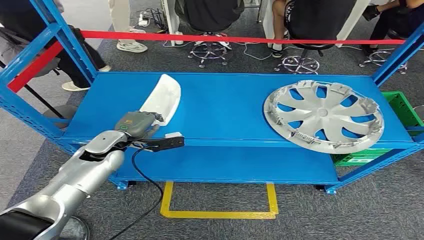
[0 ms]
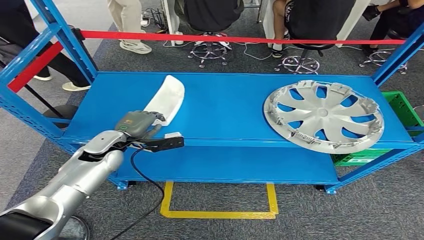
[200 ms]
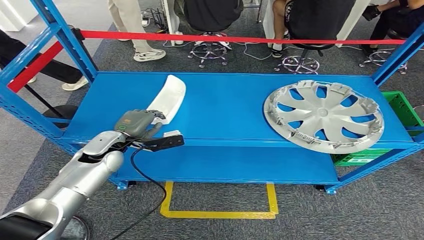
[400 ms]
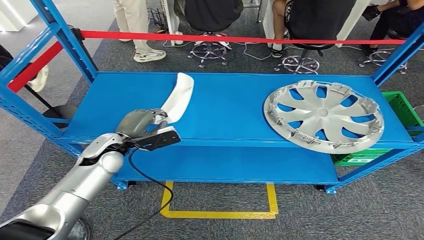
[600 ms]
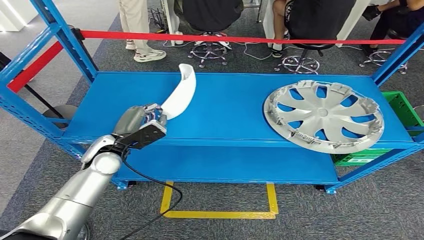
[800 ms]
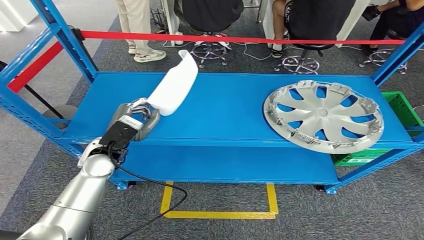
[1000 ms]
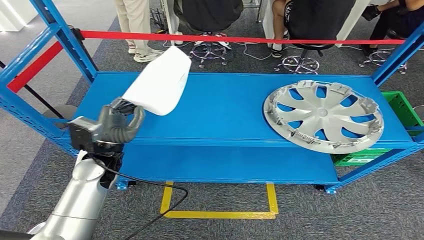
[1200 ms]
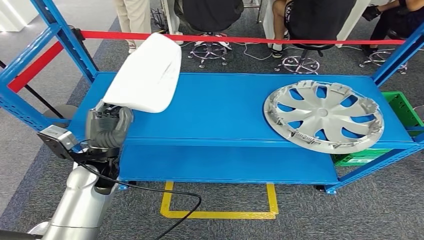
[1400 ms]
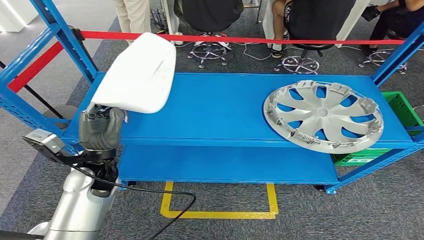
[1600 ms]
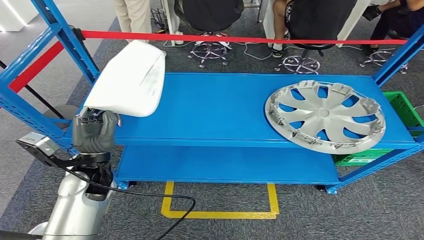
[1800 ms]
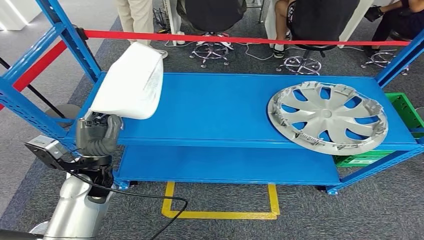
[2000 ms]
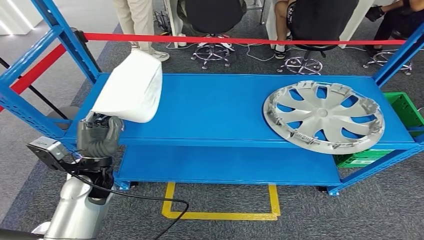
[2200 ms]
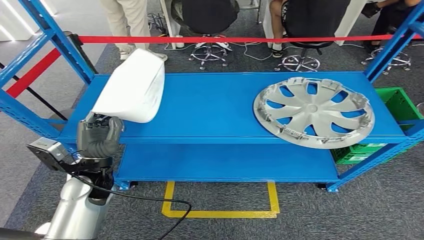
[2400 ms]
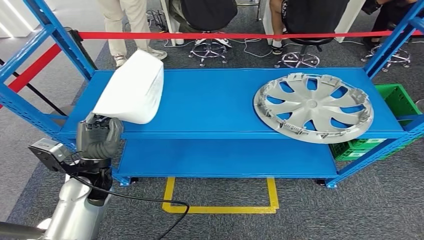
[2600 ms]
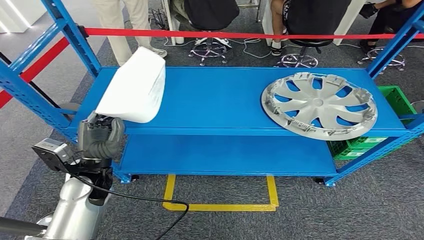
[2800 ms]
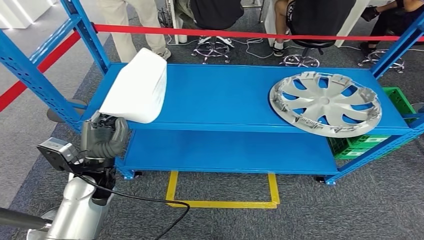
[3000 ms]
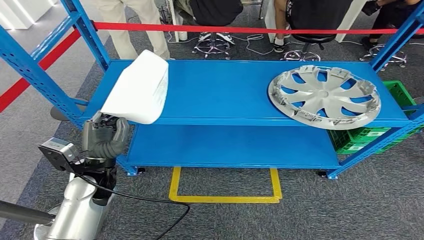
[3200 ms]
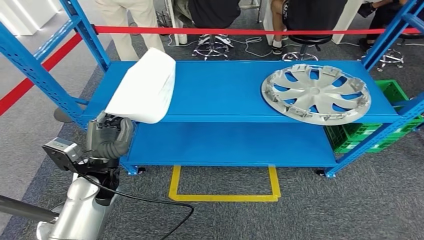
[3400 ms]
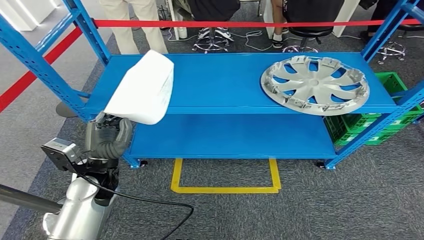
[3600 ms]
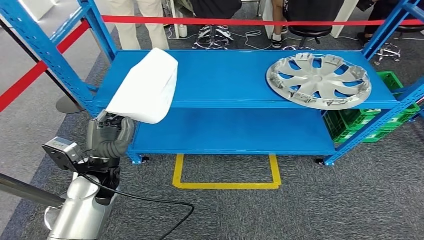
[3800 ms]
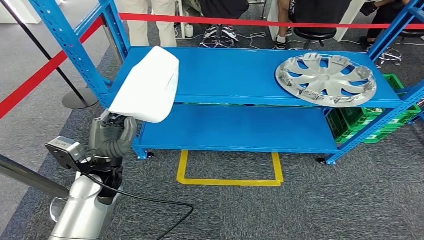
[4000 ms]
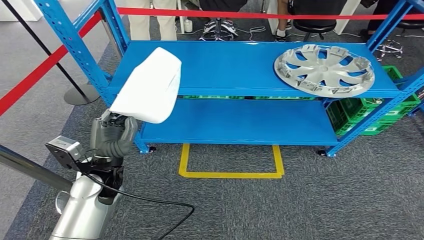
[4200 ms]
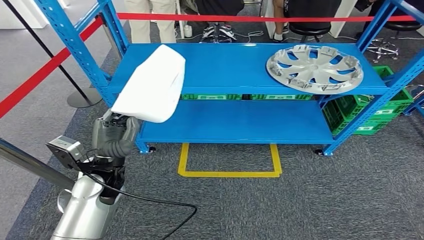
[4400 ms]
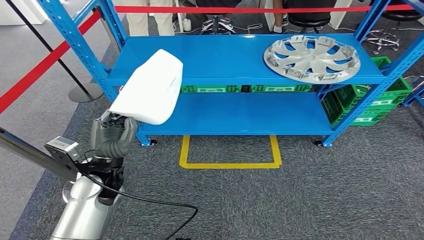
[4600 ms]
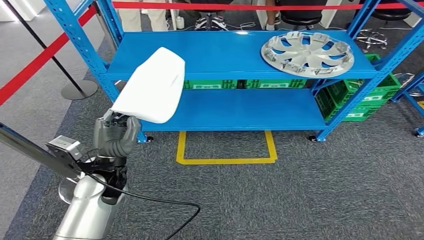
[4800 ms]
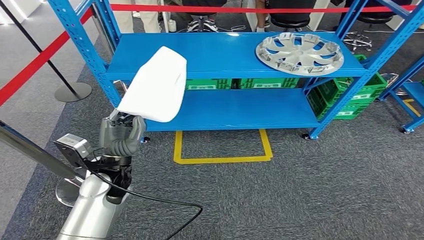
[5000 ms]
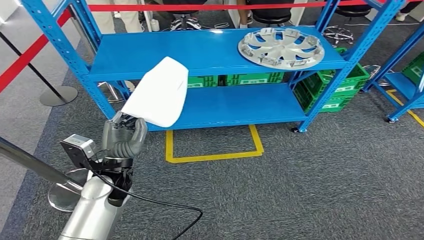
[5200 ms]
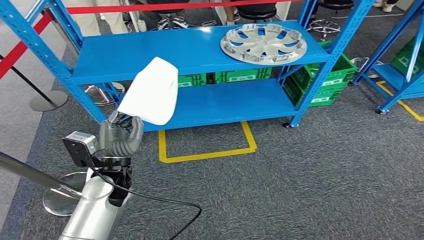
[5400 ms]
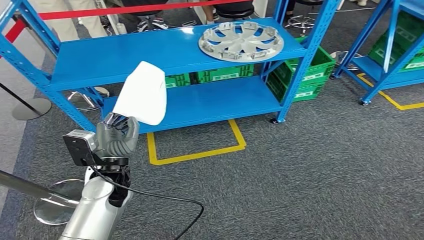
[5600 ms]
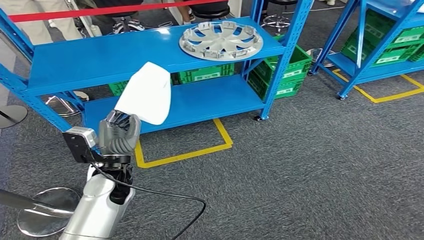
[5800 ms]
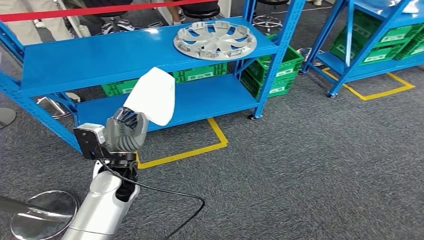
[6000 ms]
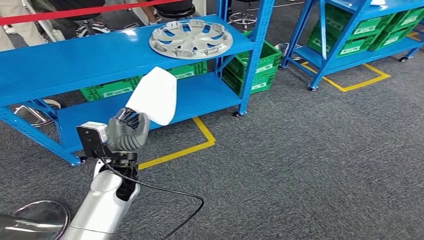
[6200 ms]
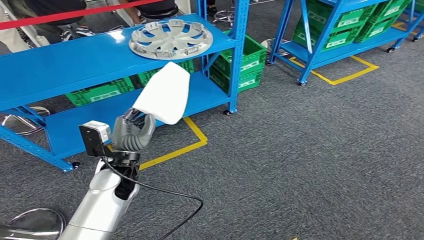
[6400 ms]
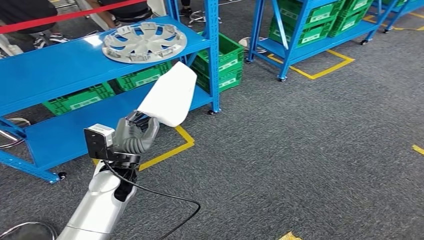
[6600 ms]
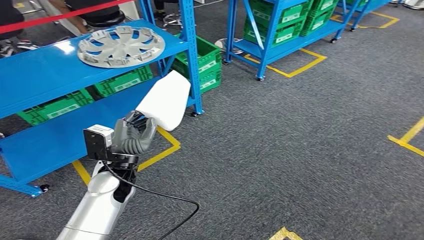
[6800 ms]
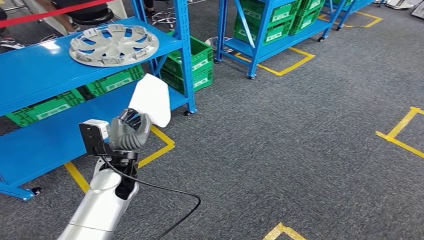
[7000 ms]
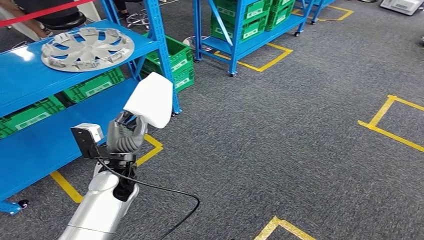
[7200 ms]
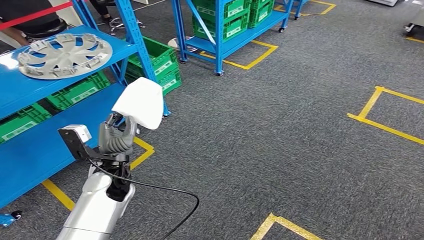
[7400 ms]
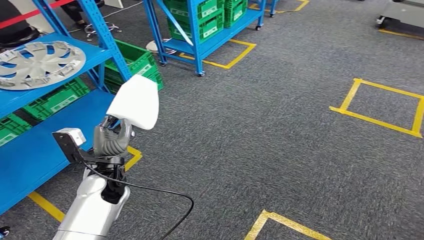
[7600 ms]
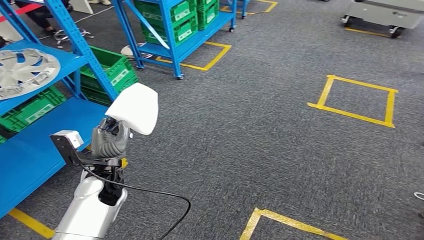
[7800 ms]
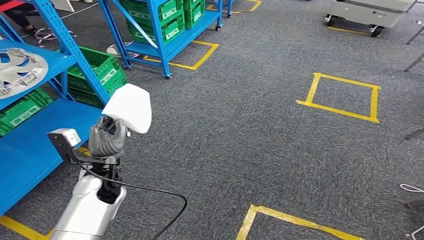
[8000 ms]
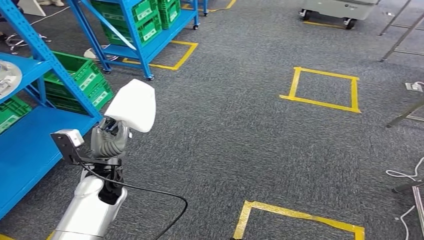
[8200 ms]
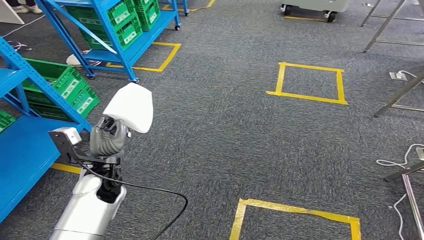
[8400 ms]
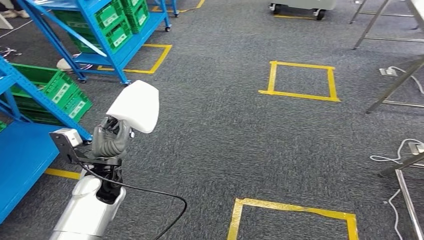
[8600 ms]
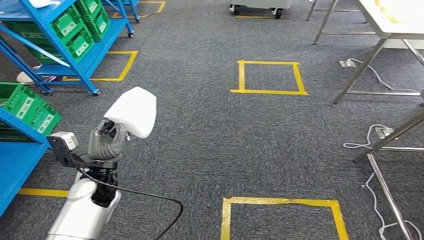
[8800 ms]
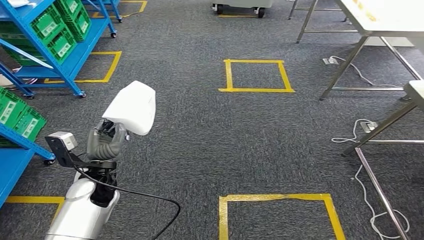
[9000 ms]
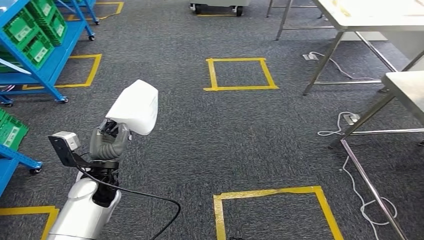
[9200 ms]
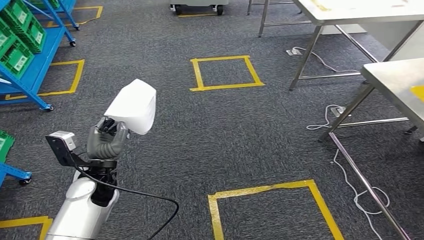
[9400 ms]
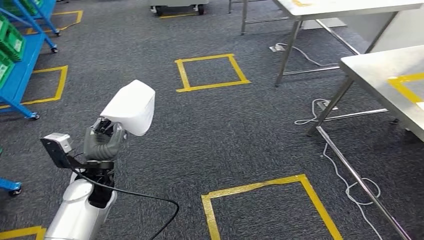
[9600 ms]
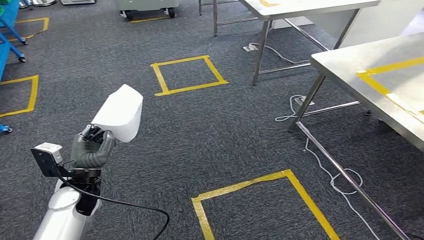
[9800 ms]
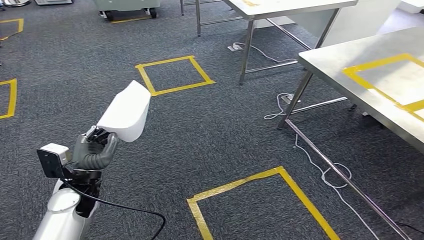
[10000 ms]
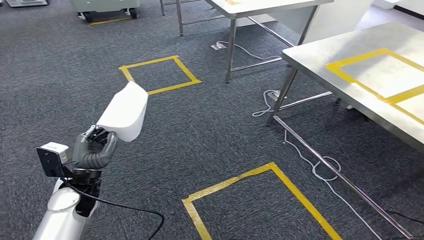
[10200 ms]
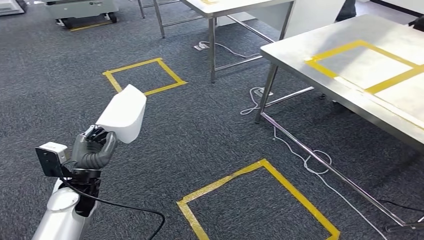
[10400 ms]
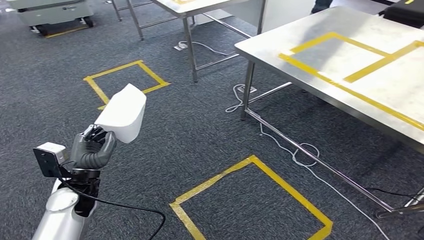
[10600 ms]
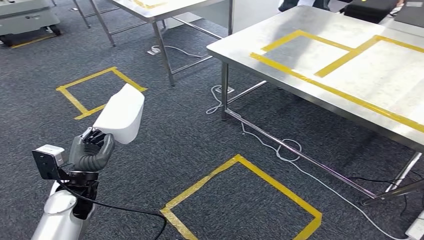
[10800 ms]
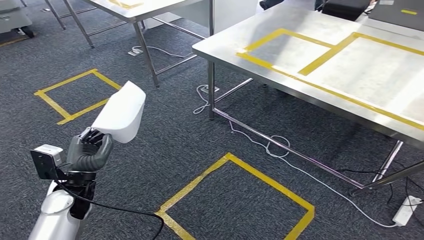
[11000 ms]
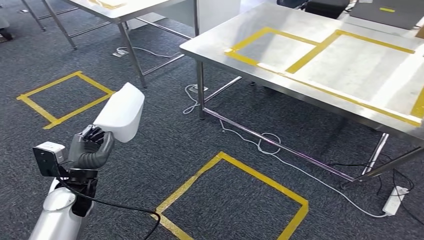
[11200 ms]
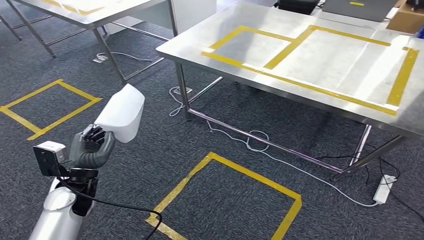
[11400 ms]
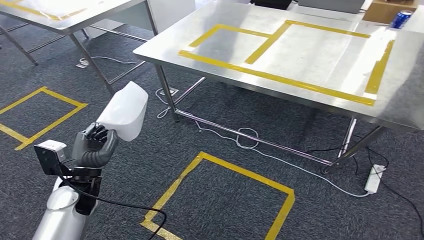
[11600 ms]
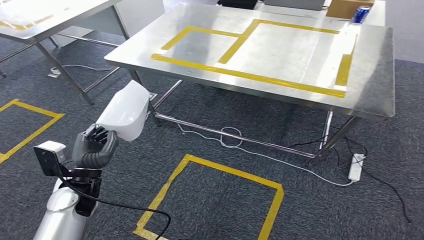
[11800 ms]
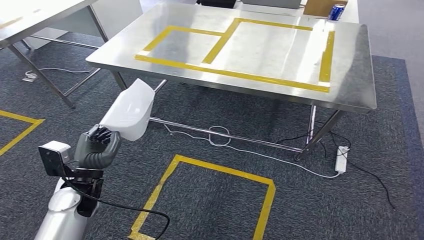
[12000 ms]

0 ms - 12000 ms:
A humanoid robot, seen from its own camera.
Step, 0 ms - 3200 ms: Pick up the small parts from the shelf.

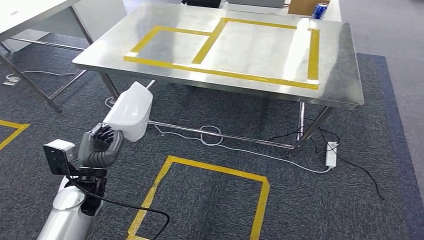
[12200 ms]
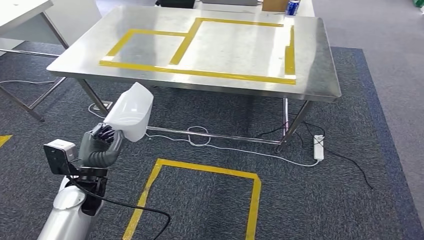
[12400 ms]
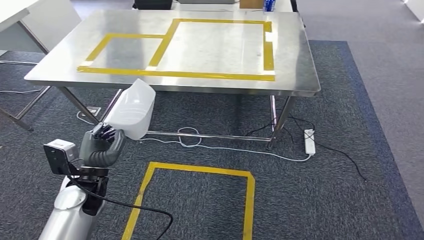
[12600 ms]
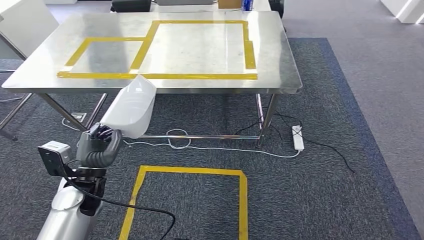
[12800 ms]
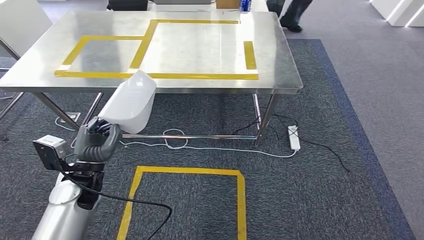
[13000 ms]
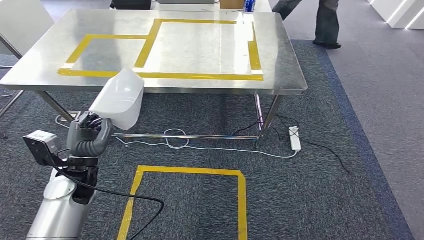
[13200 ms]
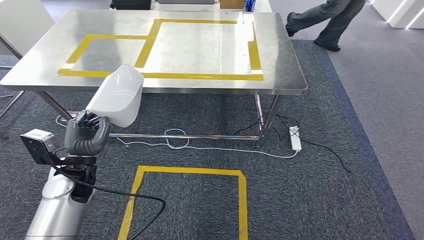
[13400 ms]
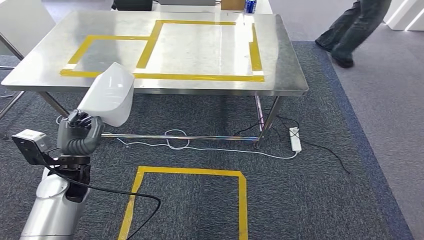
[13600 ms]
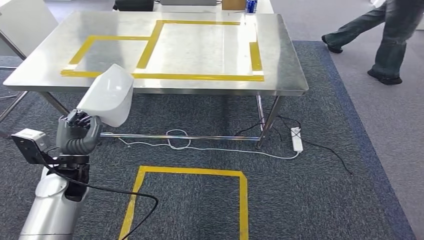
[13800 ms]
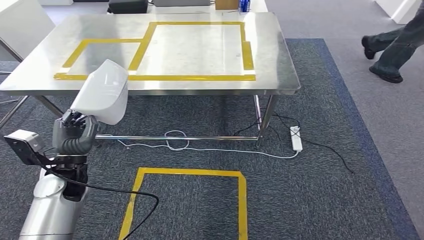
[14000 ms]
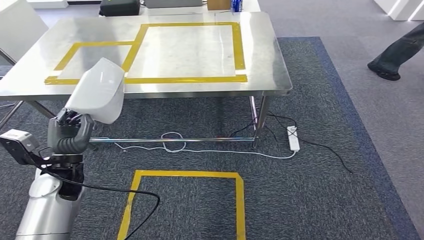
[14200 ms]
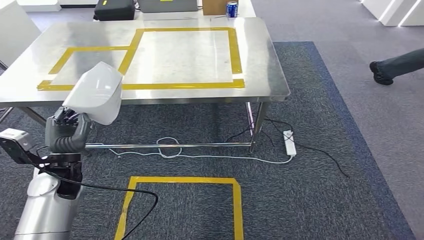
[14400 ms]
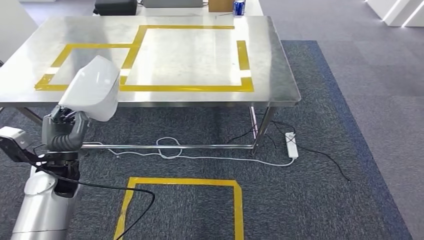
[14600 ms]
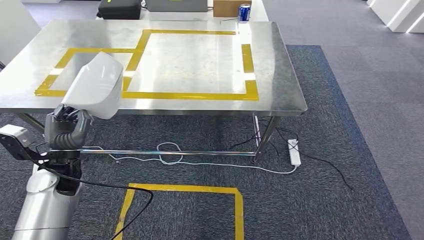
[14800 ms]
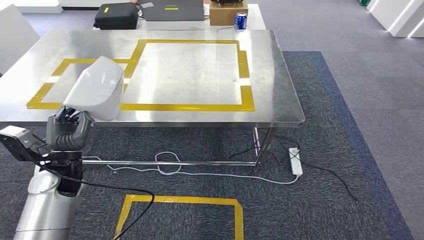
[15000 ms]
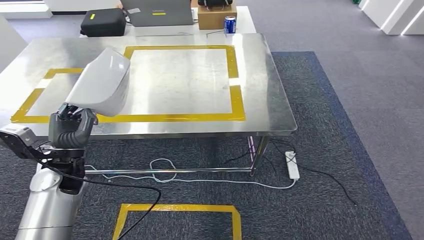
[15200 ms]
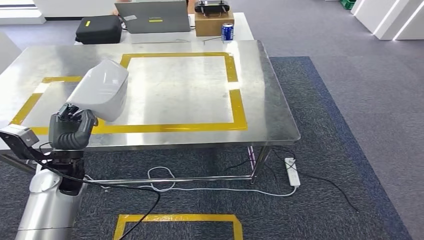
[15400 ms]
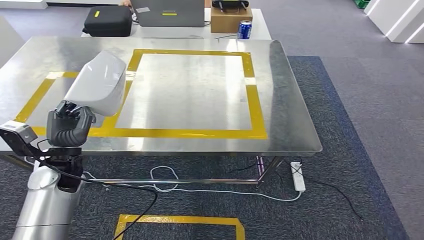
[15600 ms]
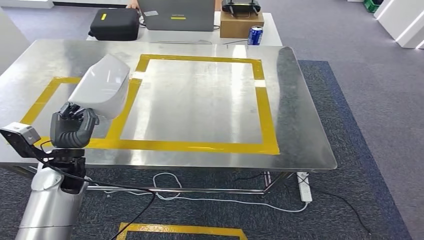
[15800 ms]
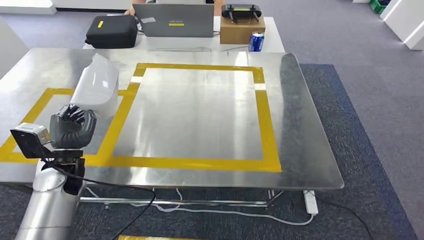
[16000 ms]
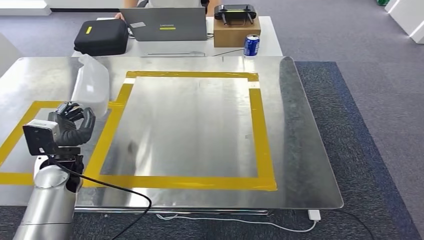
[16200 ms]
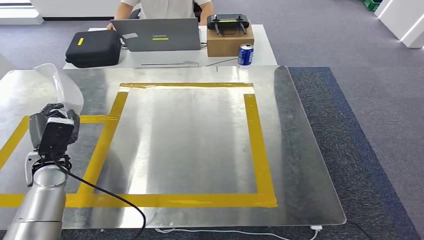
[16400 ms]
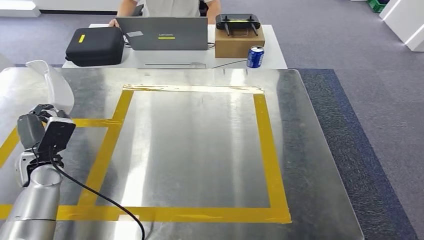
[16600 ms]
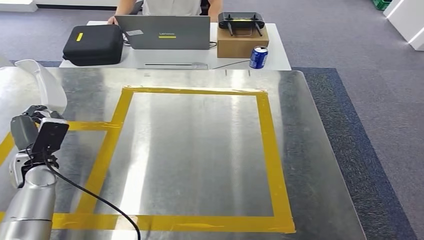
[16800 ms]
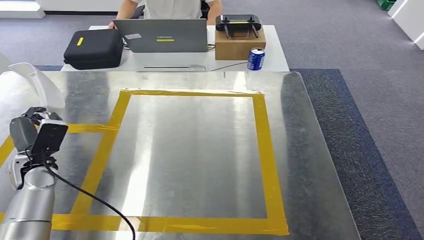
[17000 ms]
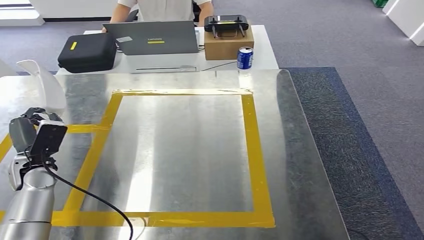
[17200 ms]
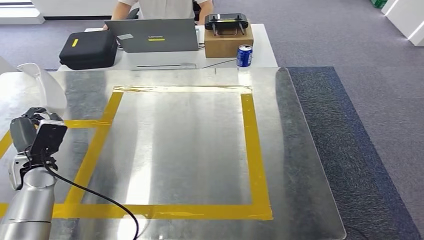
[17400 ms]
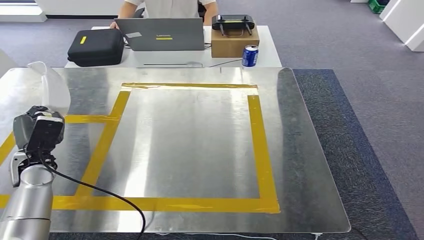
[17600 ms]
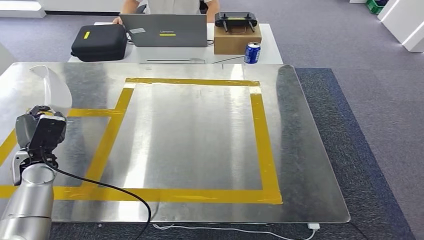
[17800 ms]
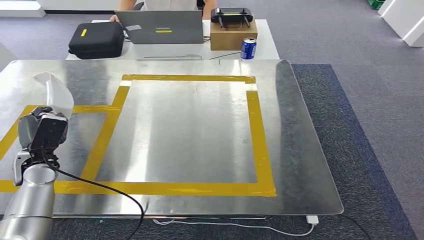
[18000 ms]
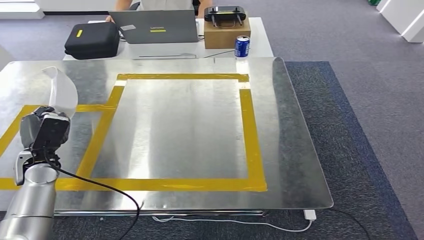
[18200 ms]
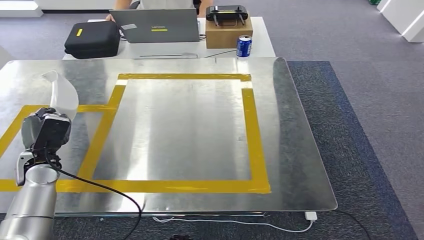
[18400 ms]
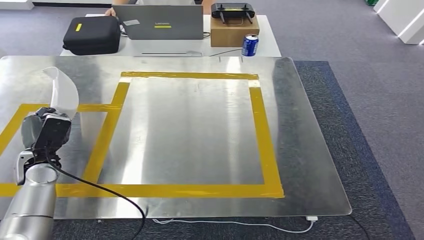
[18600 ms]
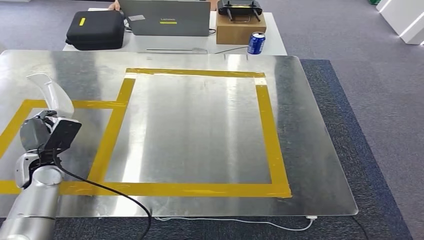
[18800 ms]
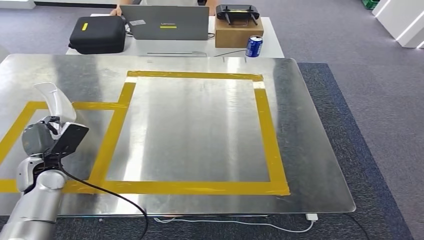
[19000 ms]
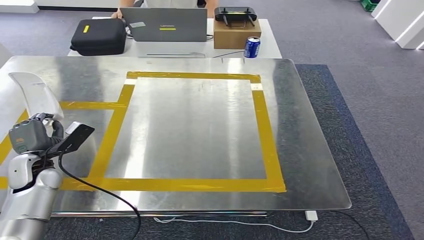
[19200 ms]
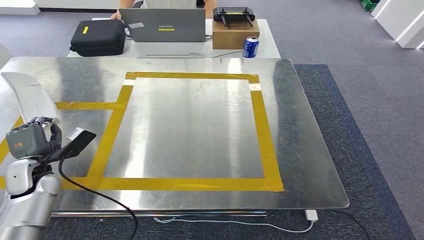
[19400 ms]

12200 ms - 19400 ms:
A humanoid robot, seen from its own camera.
Step, 12200 ms - 15200 ms: Move the small parts to the workbench.
